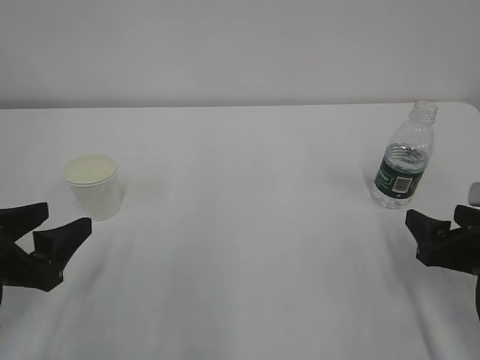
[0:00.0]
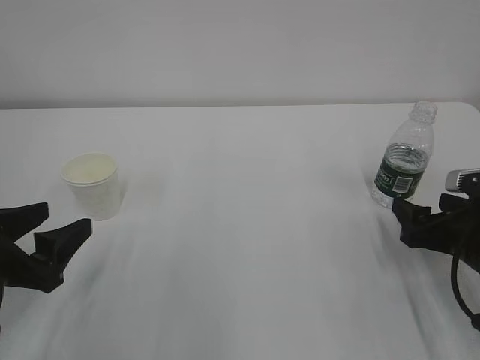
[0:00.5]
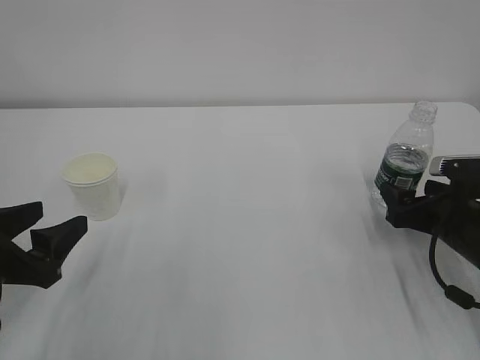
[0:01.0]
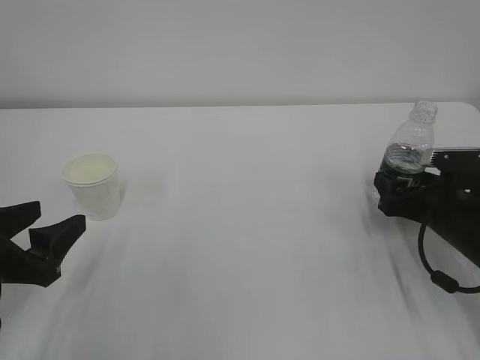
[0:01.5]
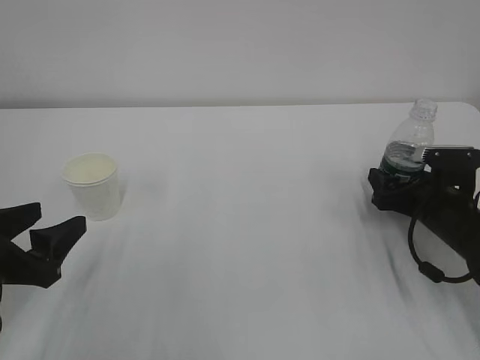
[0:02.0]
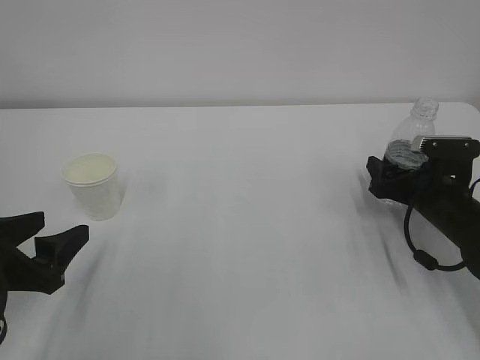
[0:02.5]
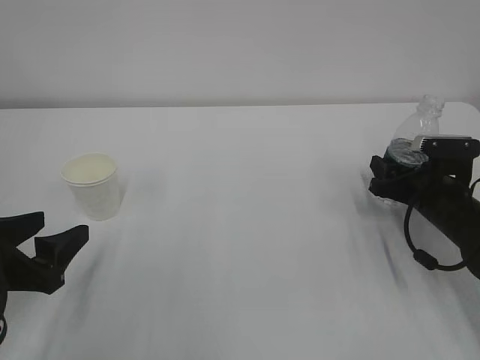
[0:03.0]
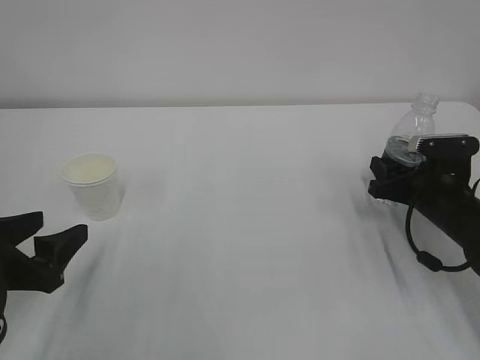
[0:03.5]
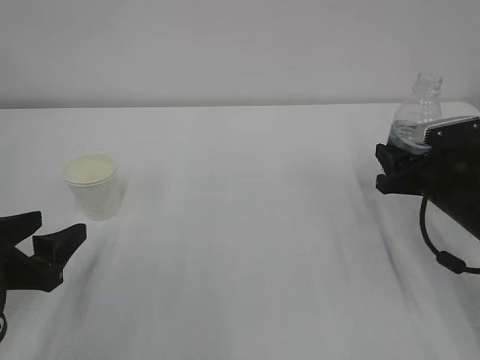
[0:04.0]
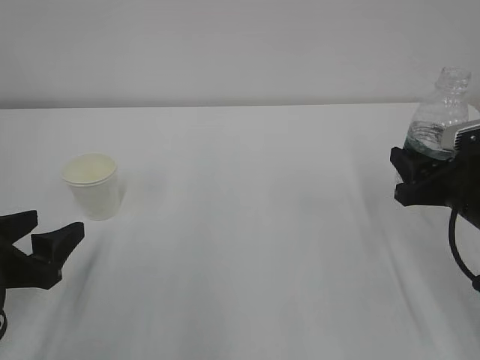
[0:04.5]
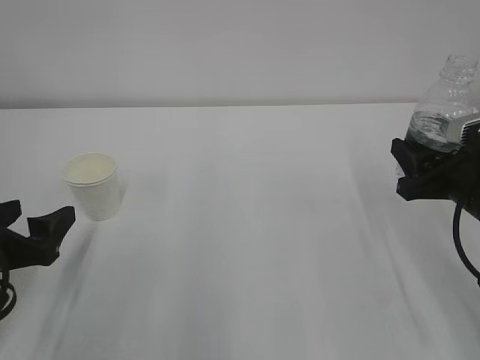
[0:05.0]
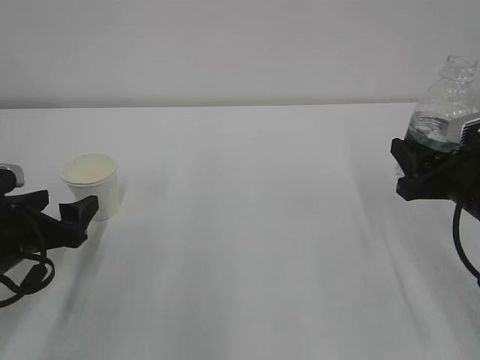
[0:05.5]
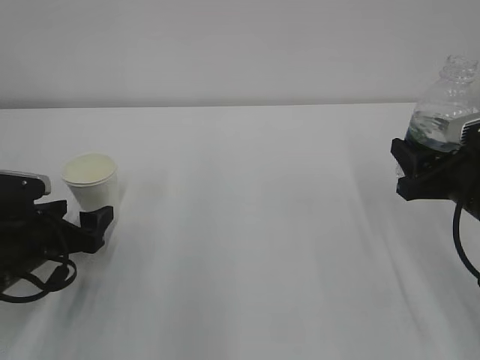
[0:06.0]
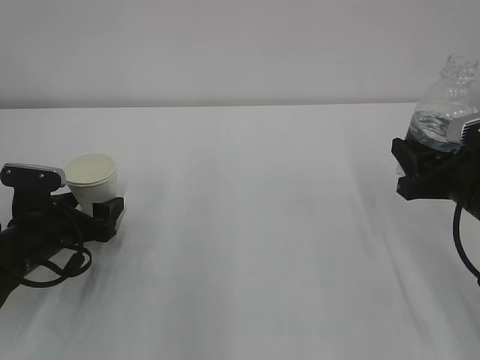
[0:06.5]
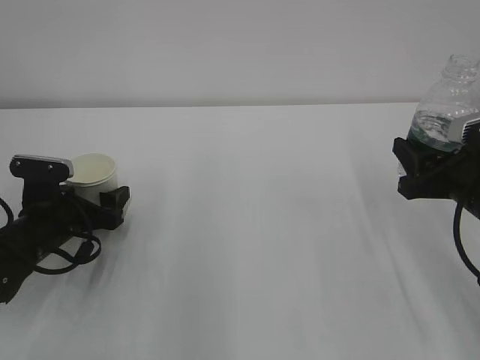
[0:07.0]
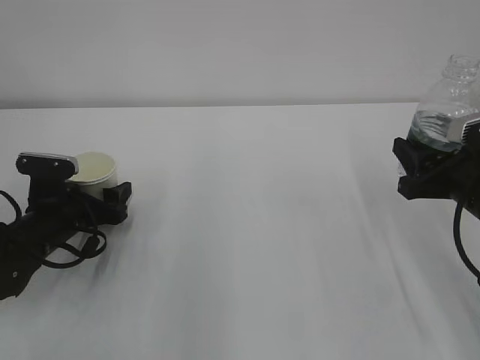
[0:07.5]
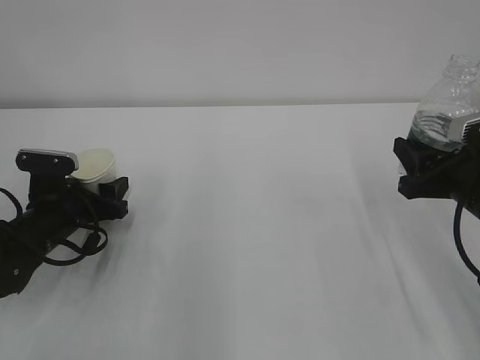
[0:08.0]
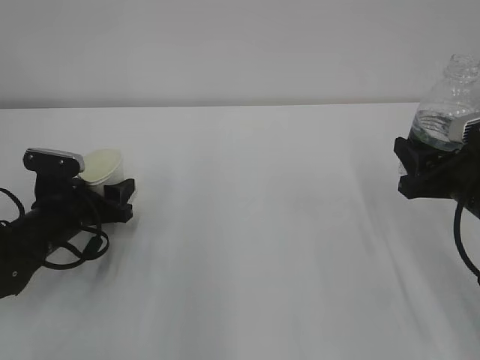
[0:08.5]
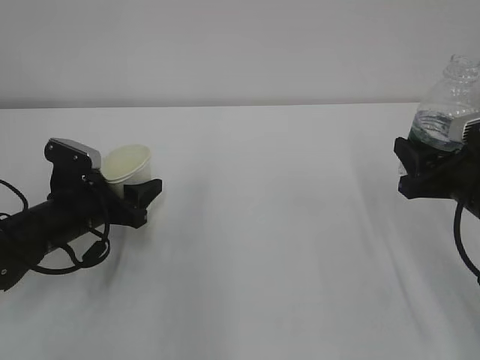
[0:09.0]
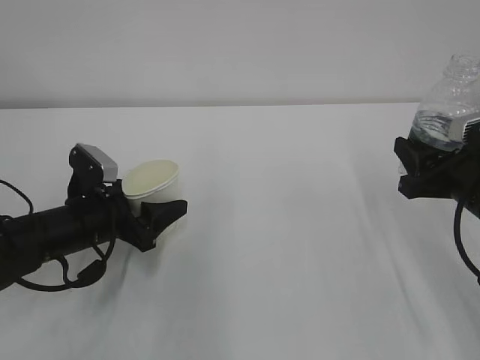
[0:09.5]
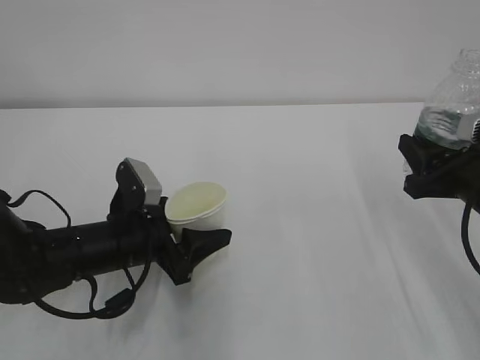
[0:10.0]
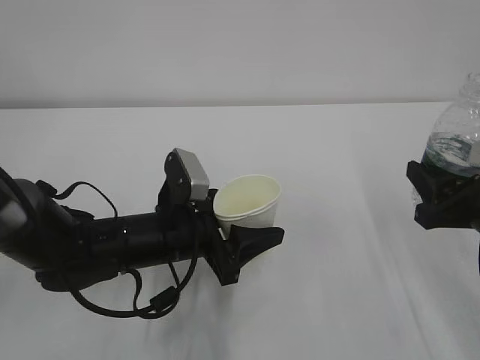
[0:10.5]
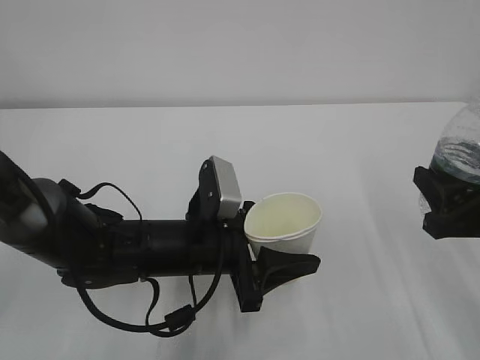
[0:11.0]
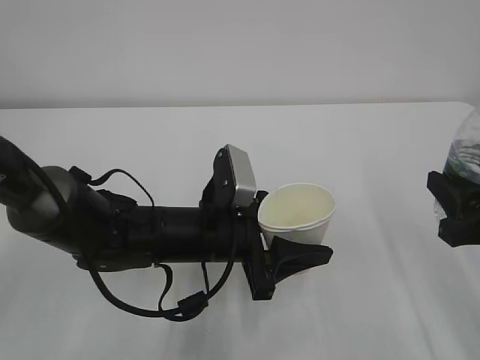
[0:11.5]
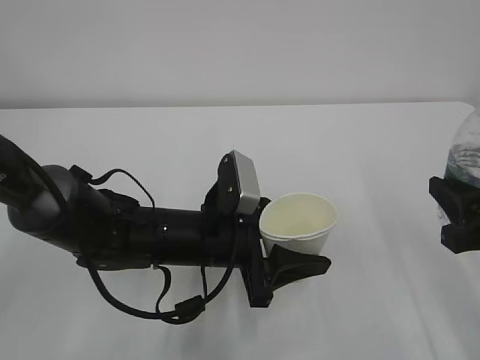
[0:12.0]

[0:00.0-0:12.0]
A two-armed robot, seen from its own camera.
0:00.0 to 0:02.0: The right gripper goes about 15 cm forward and downward.
0:02.0 to 0:04.0: The right gripper closes.
0:04.0 to 0:06.0: The left gripper moves forward and downward, roughly 10 cm, and opens up. The right gripper goes roughly 5 cm backward.
0:06.0 to 0:08.0: The left gripper moves forward, some 5 cm, and closes.
0:08.0 to 0:10.0: The left gripper travels to the right by approximately 10 cm.
0:10.0 to 0:12.0: The right gripper travels backward by approximately 5 cm, while the left gripper goes about 10 cm to the right.

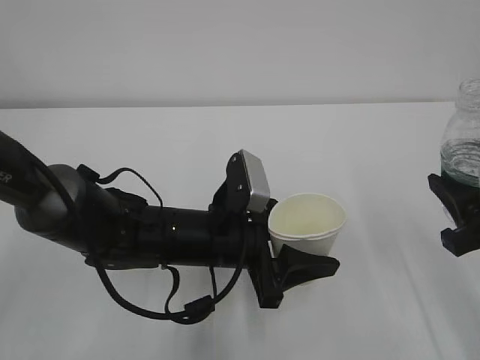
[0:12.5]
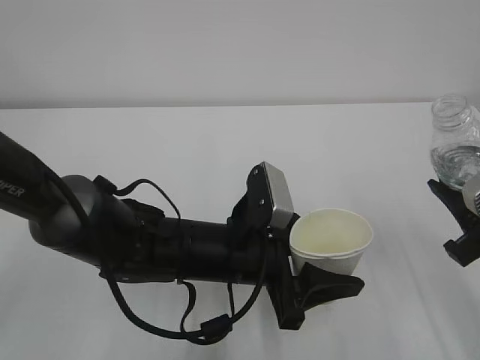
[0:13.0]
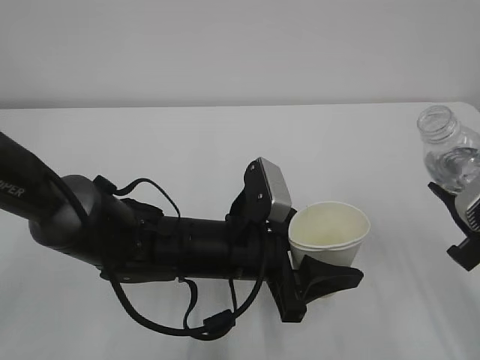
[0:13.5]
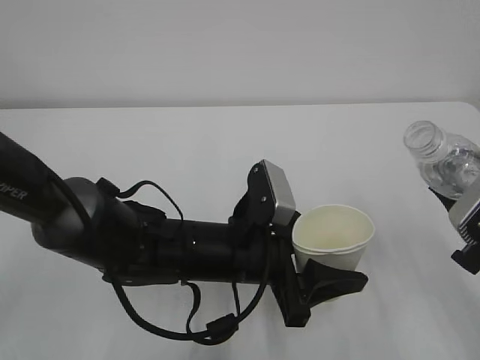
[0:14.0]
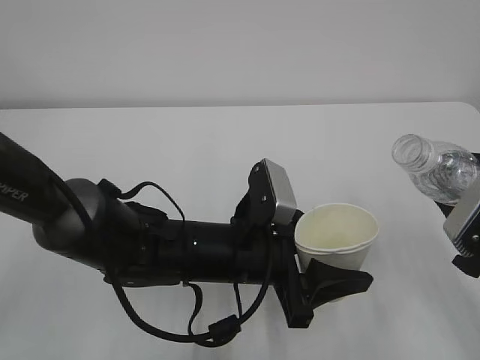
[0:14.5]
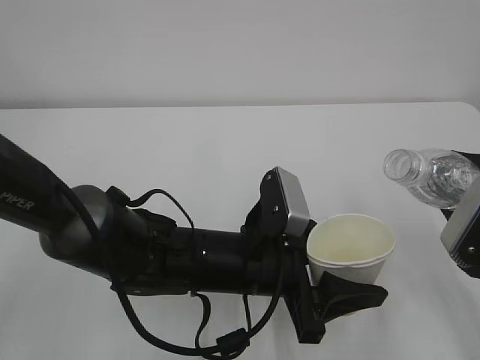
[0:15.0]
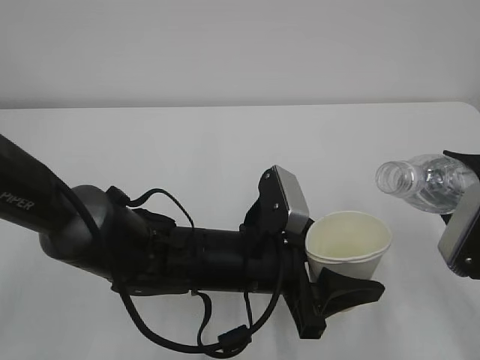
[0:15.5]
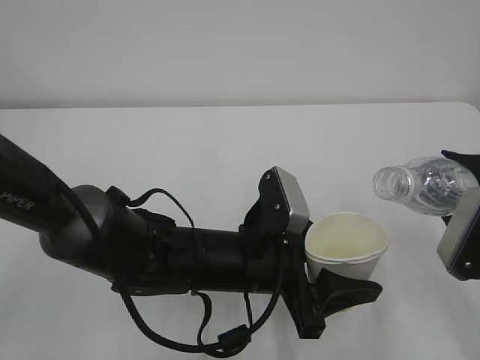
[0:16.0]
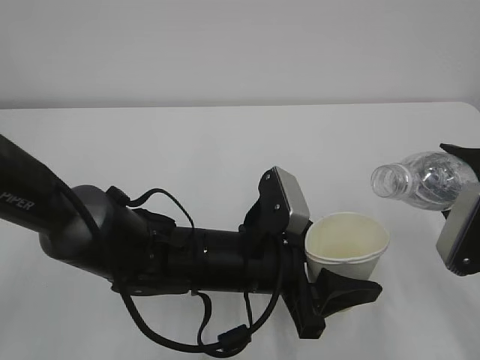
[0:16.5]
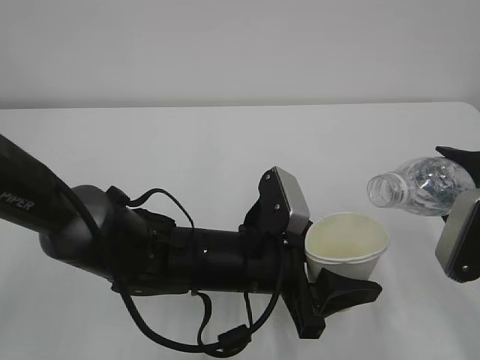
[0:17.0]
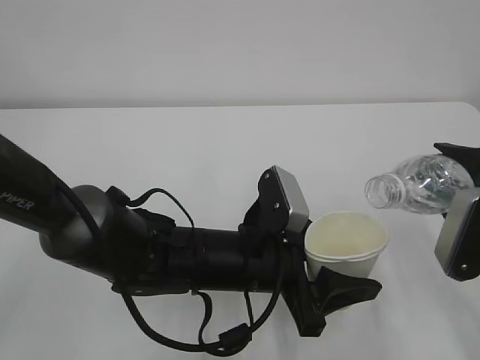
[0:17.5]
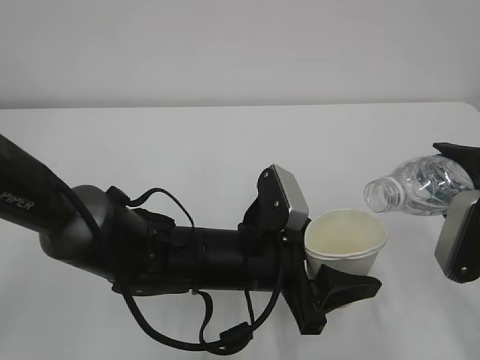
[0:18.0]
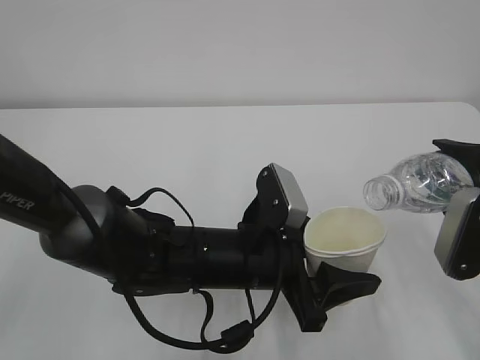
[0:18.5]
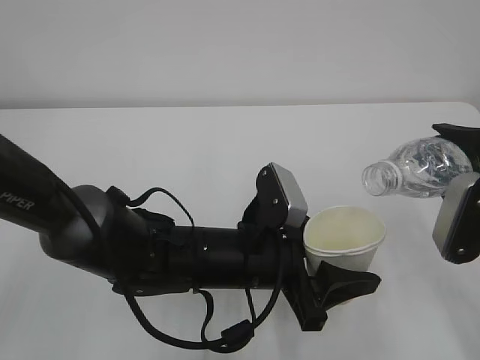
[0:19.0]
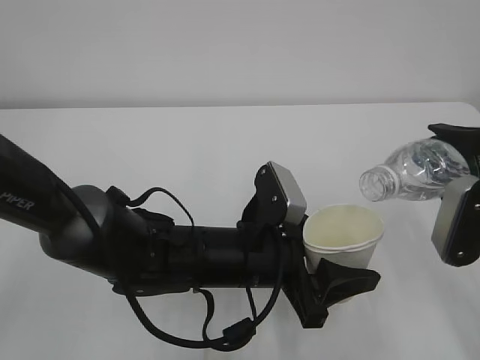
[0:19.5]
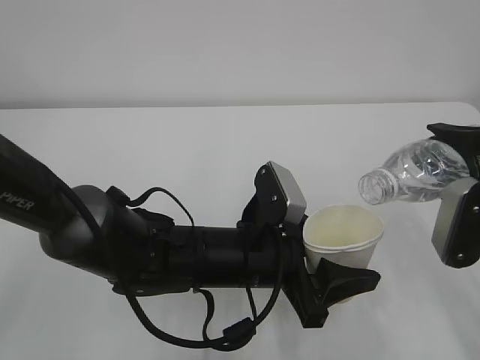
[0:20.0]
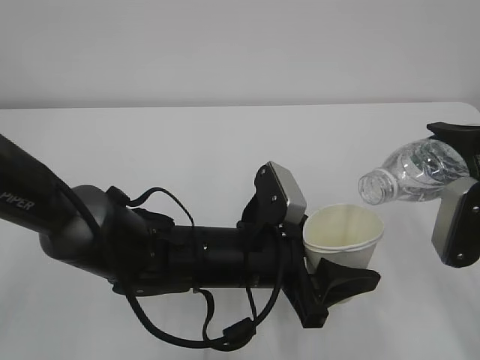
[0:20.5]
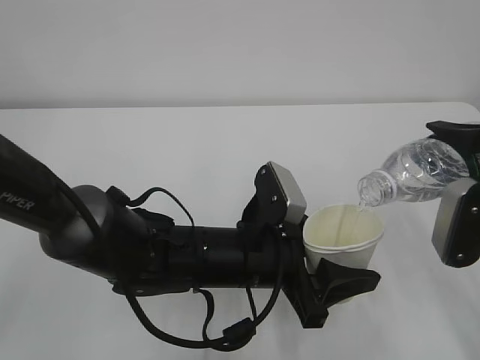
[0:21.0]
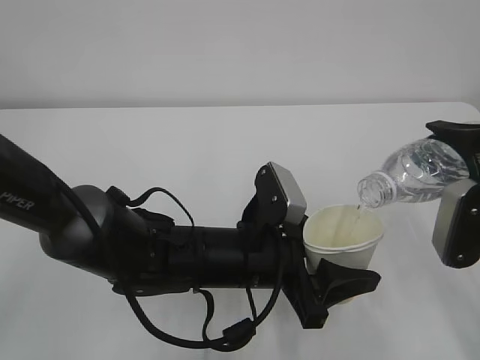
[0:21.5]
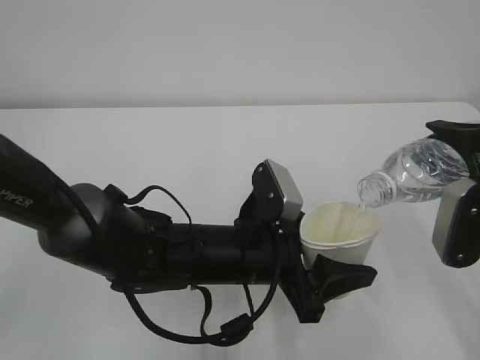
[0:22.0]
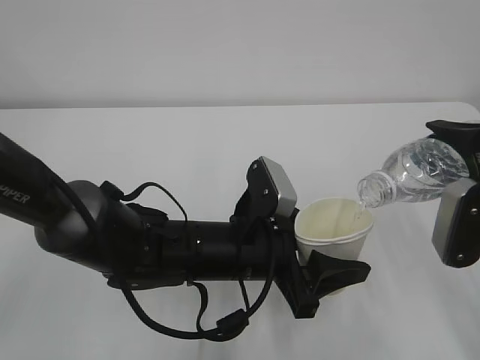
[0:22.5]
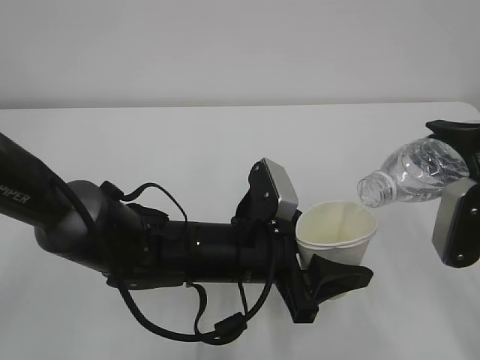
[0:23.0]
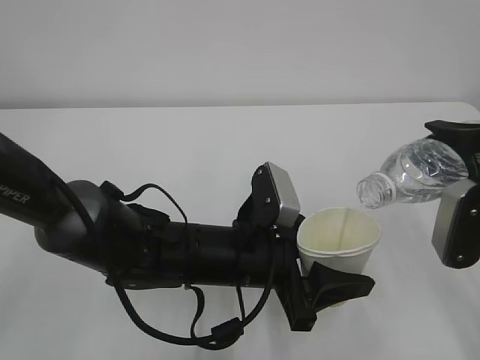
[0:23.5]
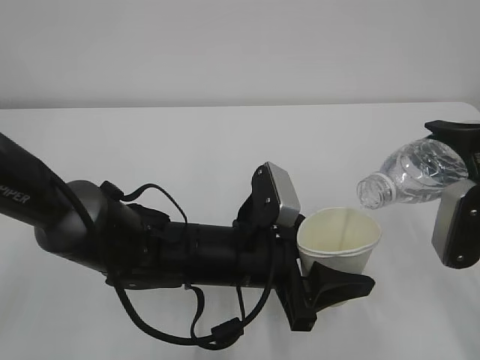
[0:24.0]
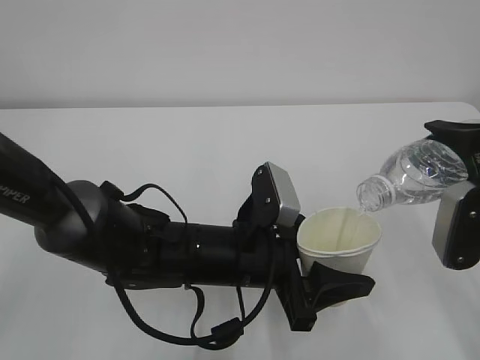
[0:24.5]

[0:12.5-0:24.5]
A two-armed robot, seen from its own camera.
0:14.5 to 0:16.5: The grippers move only a little.
0:16.5 to 0:20.5: The grippers stay close to where they were, moving slightly.
0:20.5 to 0:22.5: The two grippers keep their place.
0:22.5 to 0:24.5: Both grippers stay put.

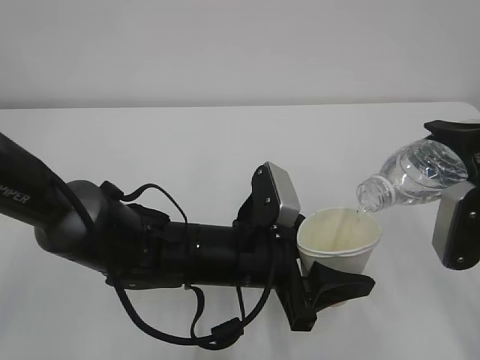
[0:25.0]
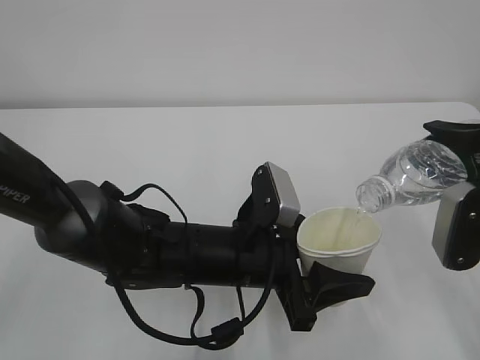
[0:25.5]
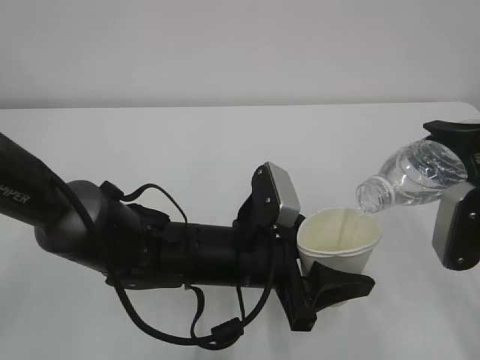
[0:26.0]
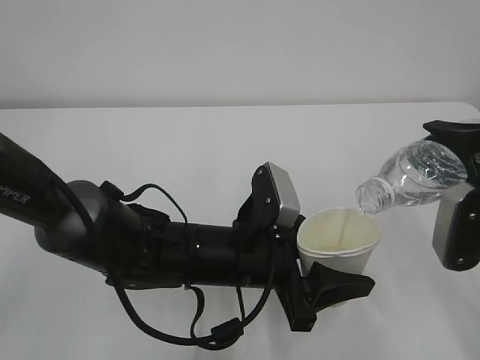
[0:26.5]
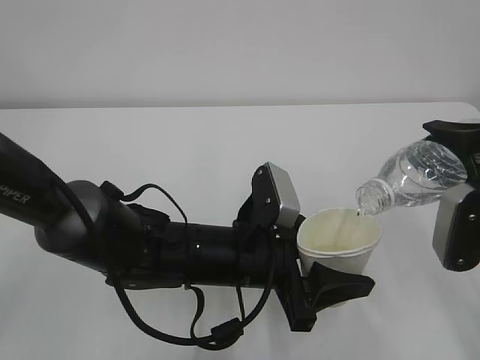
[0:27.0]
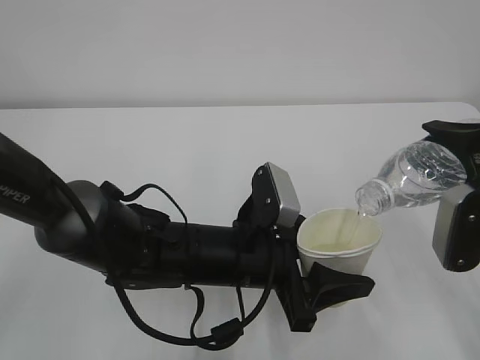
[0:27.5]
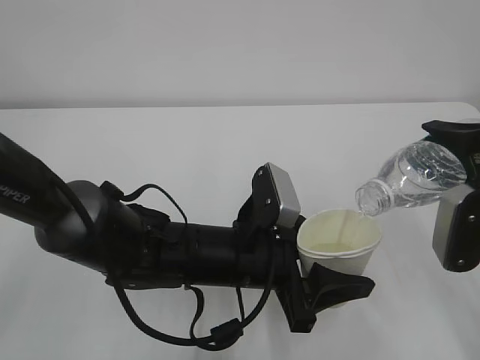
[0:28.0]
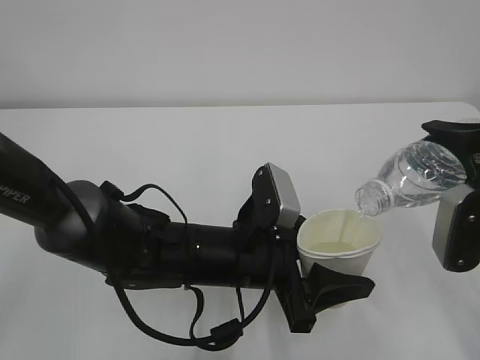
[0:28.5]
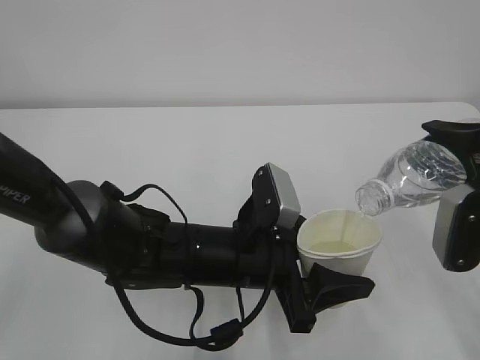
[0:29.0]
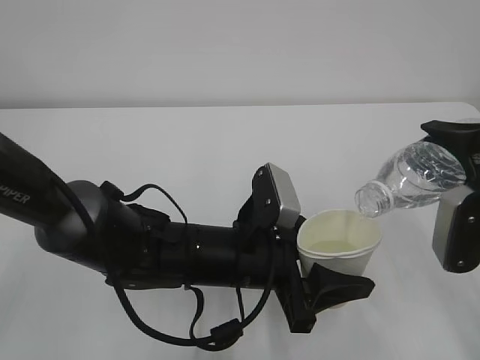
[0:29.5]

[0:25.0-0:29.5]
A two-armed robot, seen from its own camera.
0:25.0 to 0:29.5: Neither gripper changes place.
